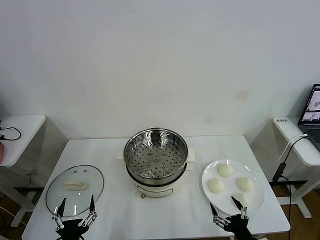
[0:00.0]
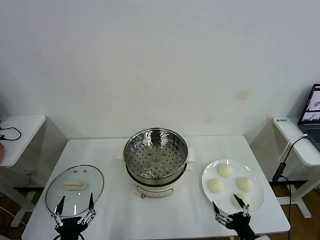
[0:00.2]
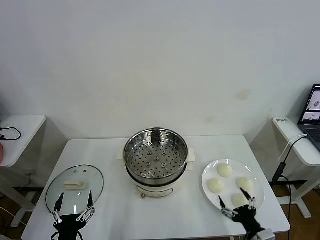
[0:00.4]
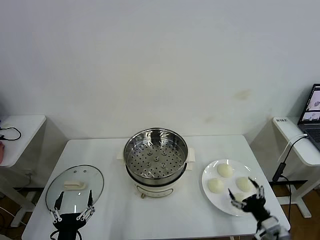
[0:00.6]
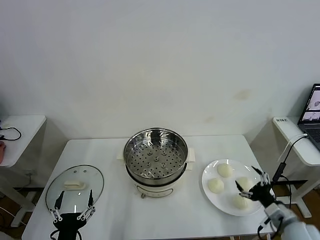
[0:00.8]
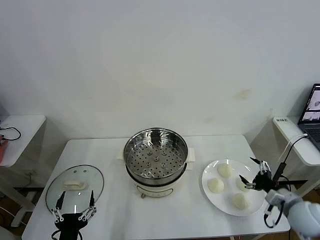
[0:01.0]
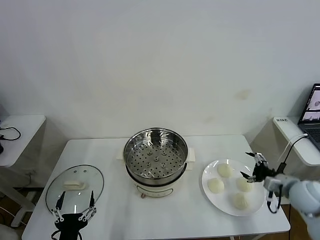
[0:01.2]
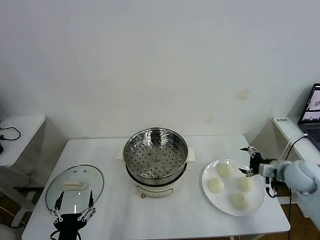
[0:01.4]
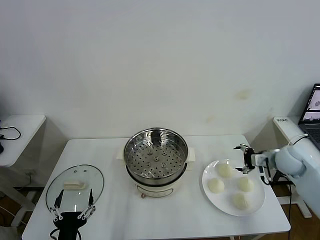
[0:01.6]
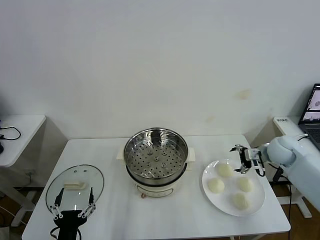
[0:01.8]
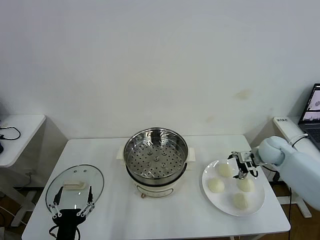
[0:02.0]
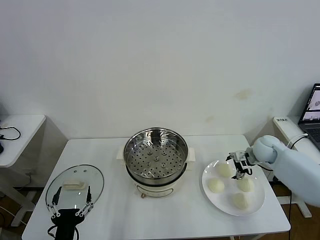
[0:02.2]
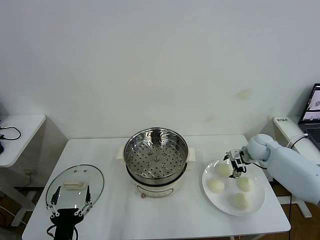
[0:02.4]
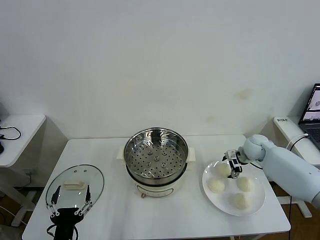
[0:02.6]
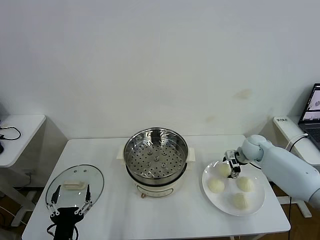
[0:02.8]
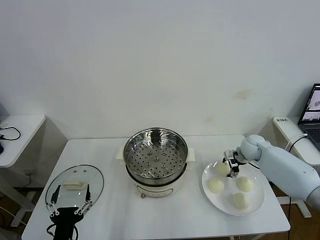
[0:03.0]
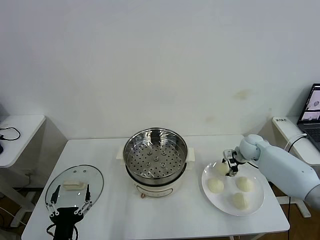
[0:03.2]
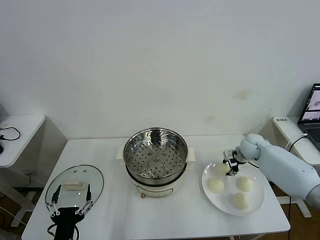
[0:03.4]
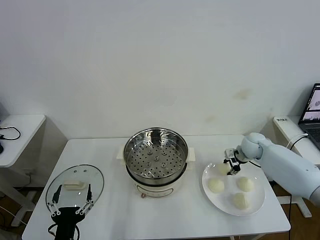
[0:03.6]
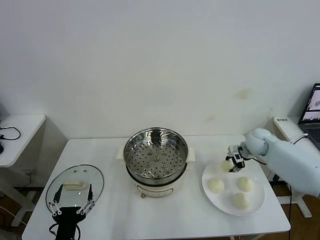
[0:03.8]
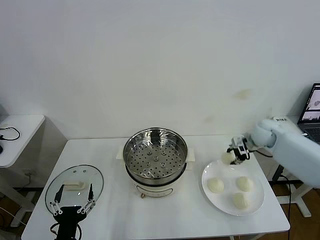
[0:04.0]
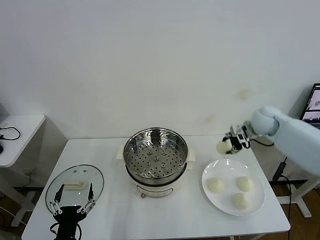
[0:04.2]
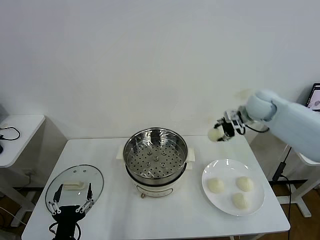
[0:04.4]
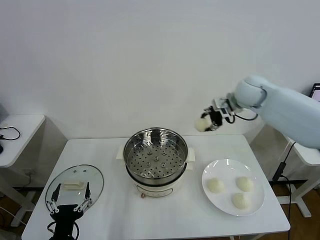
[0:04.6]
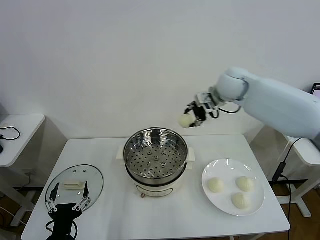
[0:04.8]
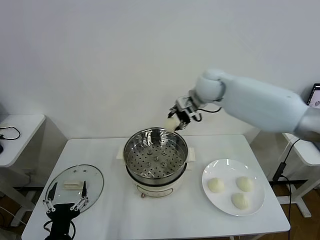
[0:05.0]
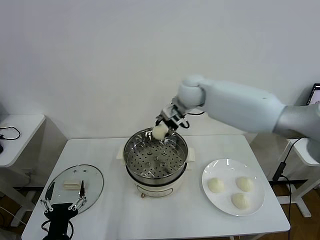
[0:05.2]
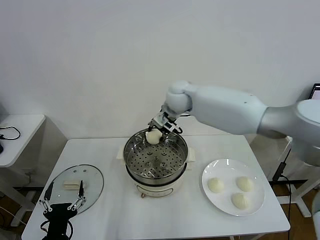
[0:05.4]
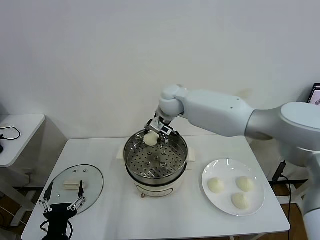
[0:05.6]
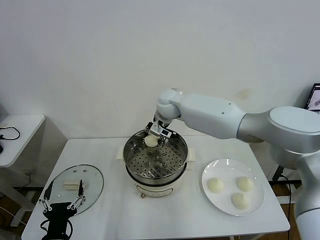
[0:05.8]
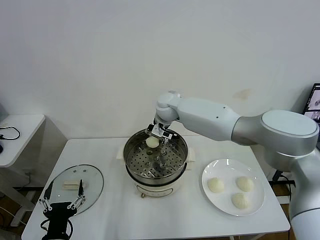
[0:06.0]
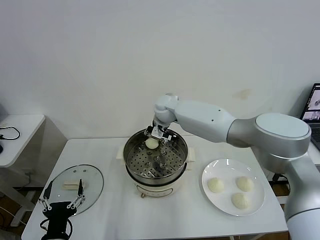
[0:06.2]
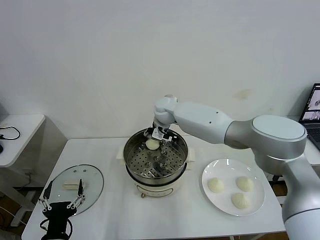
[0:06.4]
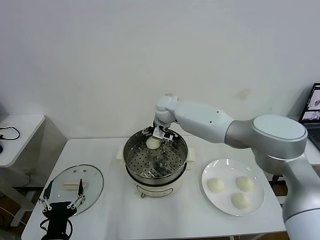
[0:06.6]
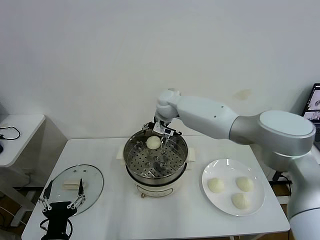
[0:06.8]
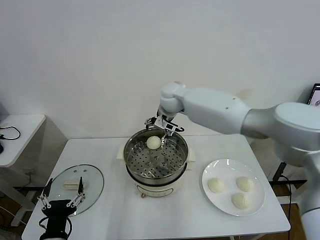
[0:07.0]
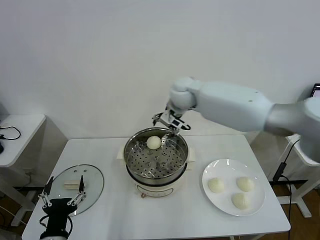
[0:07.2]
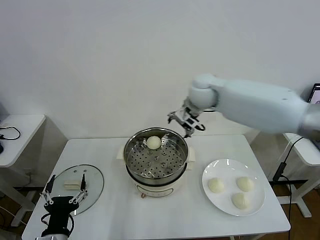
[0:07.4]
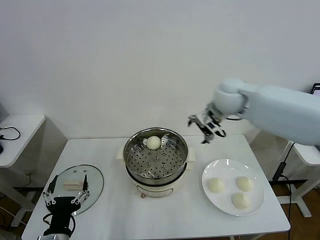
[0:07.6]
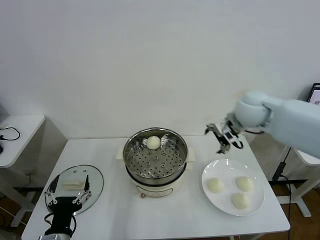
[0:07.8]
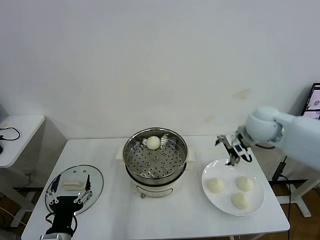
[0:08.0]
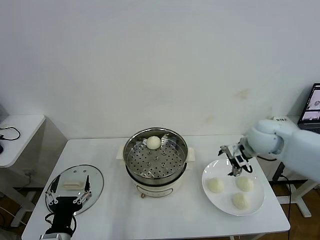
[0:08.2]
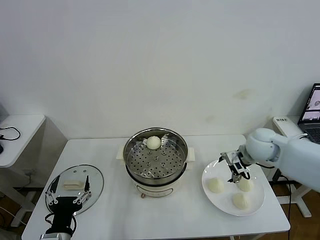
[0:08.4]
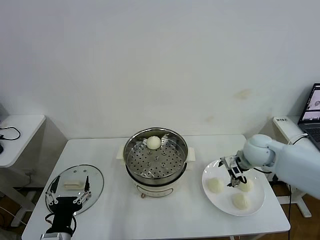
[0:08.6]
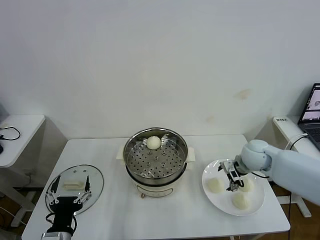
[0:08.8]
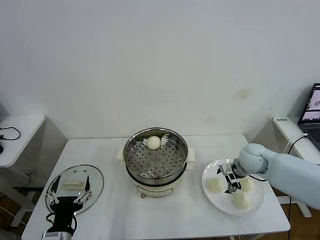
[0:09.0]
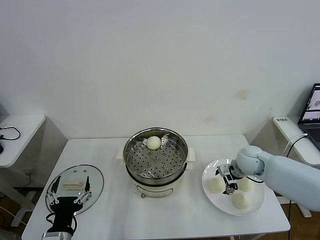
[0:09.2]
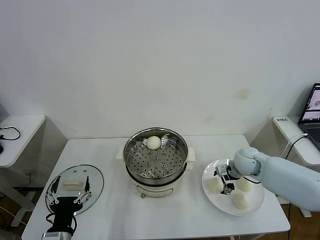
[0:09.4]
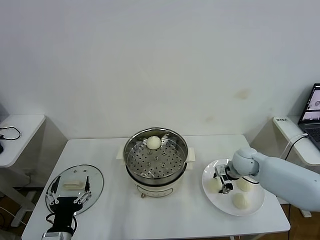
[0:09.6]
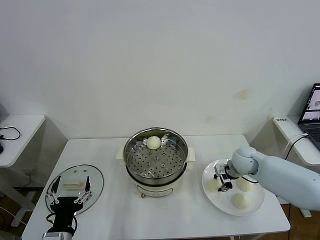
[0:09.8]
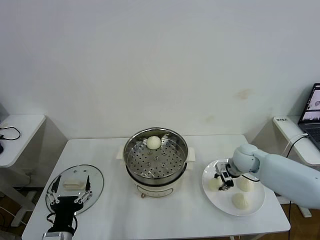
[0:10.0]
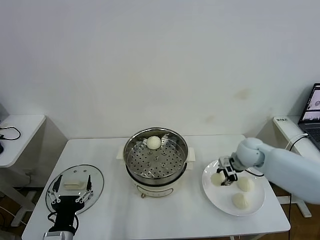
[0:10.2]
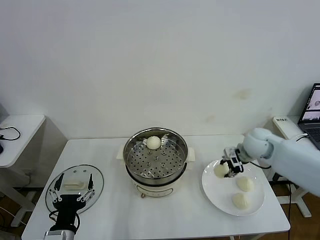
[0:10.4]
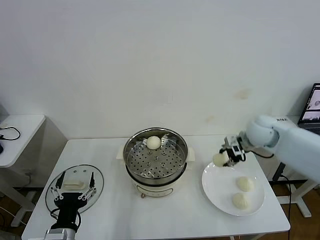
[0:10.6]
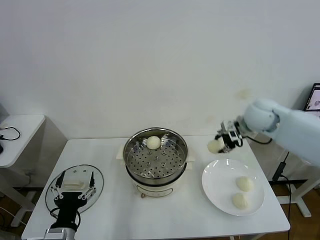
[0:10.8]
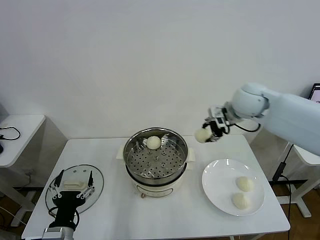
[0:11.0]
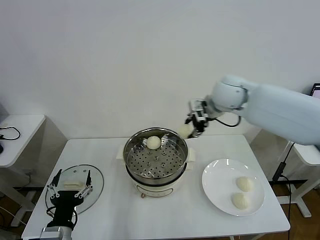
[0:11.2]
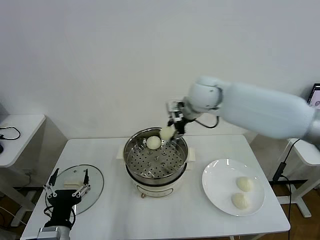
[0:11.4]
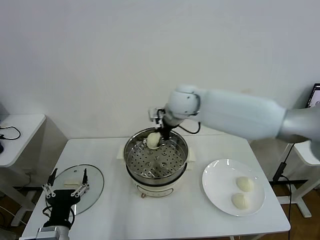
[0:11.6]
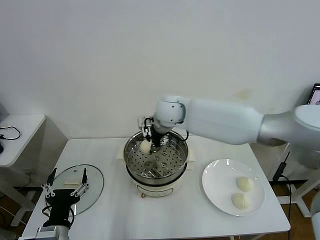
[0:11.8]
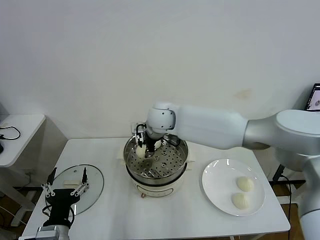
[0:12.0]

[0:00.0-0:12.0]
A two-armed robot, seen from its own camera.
Task of the whole recording: take steamed baozi put them in steamer then cover it.
Step, 0:00.0 to 0:03.4: Grasp the baozi in the plate with right gripper.
Step, 0:03.6 to 0:06.6: Place the baozi on the steamer with right gripper.
Step, 0:06.8 to 0:09.8: Grasp the baozi in the plate with right gripper.
0:01.6 to 0:03.0: The right gripper shifts approximately 15 cm forward, downward and to the left, and closes.
0:03.0 to 0:04.4: The right gripper moves upward, some 20 cm, and closes its fingers.
0:04.4 to 0:06.0: The right gripper moves to the left, approximately 30 cm.
0:06.0 to 0:07.6: The right gripper heads to the right, upward and backward, covering roughly 20 cm, and opens up.
0:07.6 to 0:09.0: The right gripper goes about 25 cm downward and to the right.
0:09.0 to 0:10.4: The right gripper heads upward, covering some 5 cm, and closes up.
0:10.4 to 0:12.0: The right gripper moves to the left, roughly 35 cm.

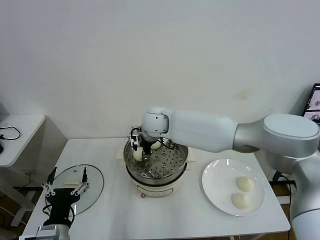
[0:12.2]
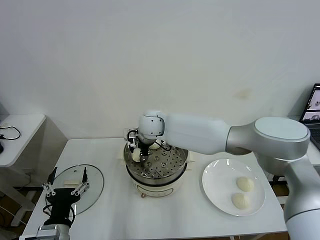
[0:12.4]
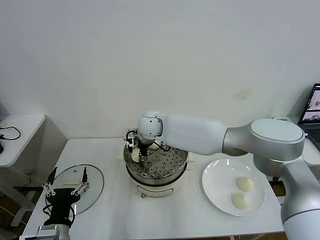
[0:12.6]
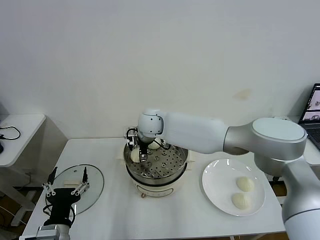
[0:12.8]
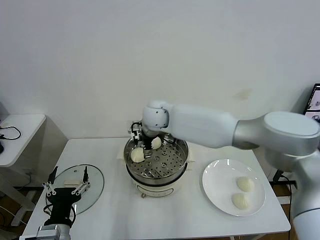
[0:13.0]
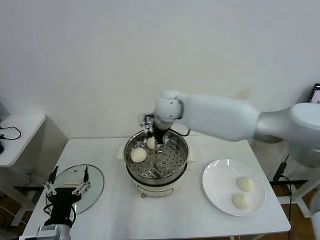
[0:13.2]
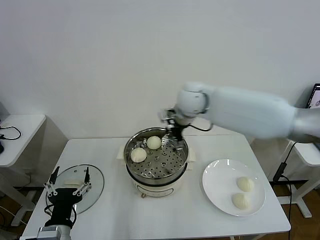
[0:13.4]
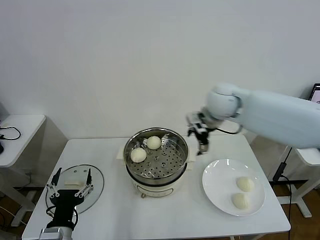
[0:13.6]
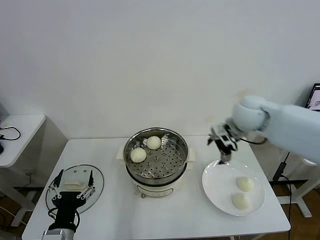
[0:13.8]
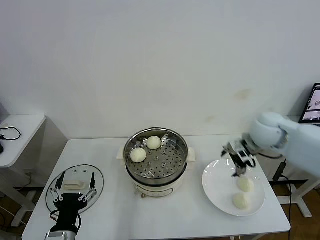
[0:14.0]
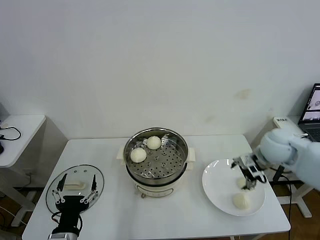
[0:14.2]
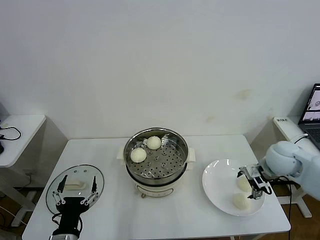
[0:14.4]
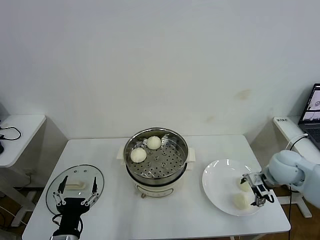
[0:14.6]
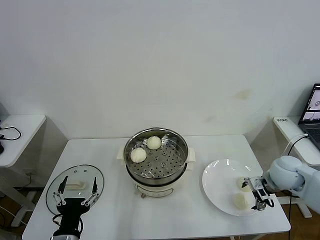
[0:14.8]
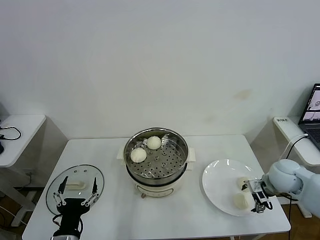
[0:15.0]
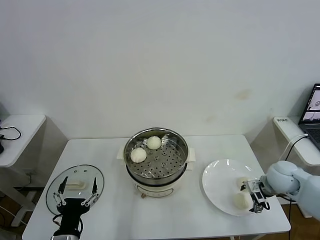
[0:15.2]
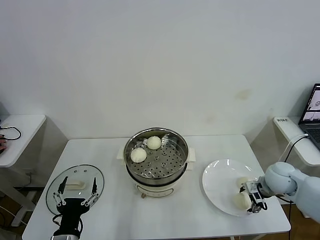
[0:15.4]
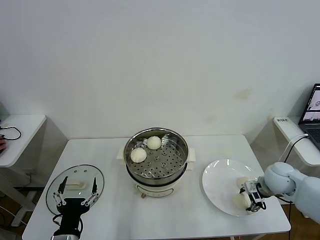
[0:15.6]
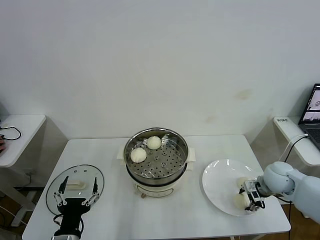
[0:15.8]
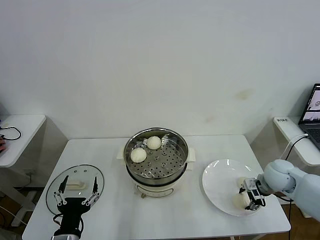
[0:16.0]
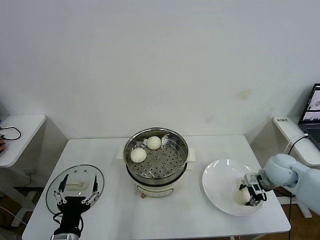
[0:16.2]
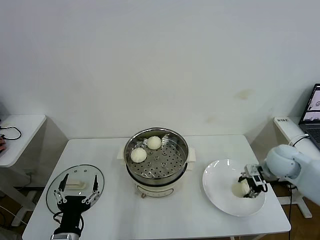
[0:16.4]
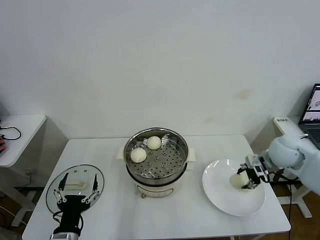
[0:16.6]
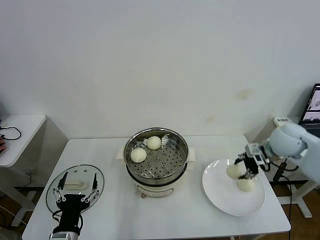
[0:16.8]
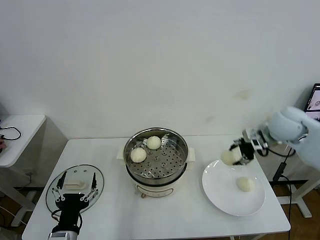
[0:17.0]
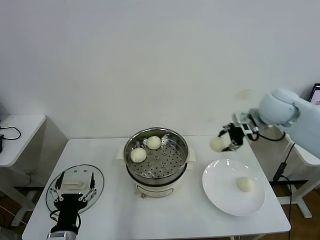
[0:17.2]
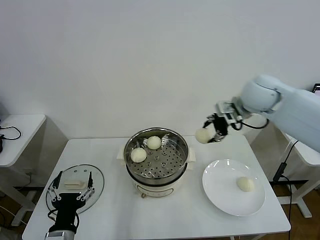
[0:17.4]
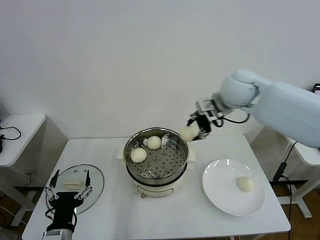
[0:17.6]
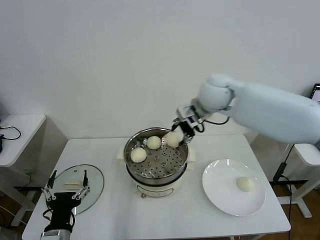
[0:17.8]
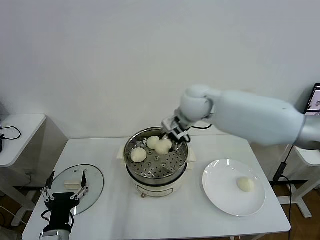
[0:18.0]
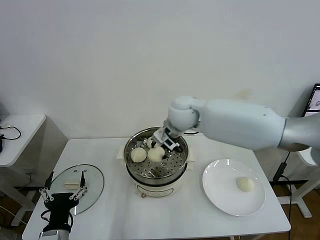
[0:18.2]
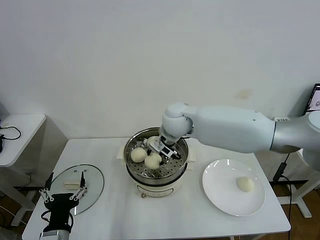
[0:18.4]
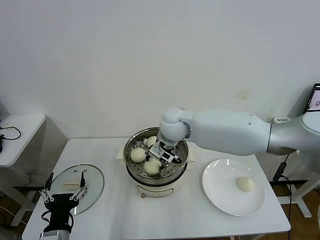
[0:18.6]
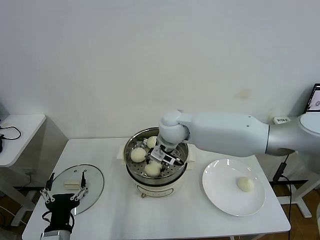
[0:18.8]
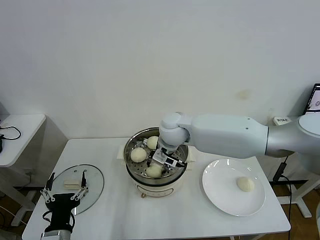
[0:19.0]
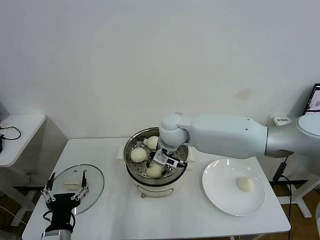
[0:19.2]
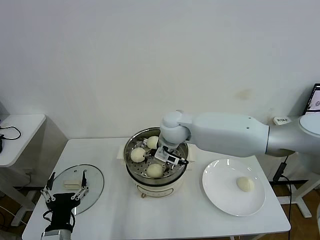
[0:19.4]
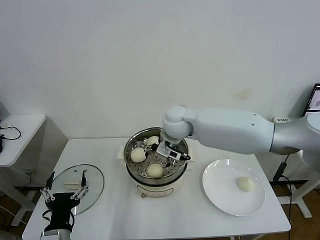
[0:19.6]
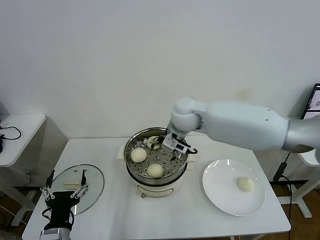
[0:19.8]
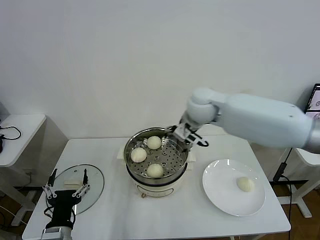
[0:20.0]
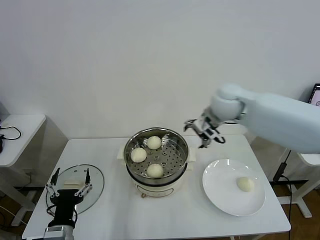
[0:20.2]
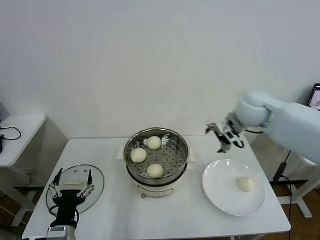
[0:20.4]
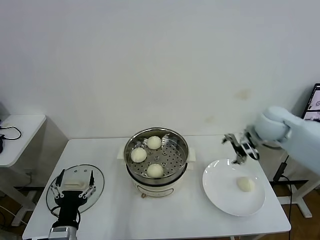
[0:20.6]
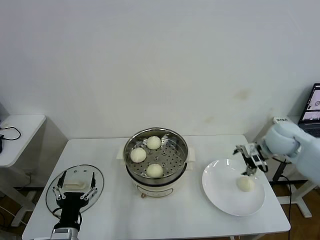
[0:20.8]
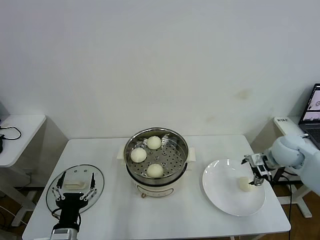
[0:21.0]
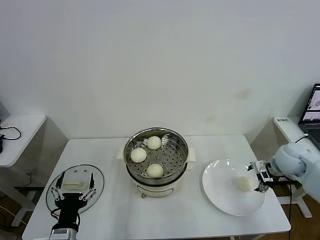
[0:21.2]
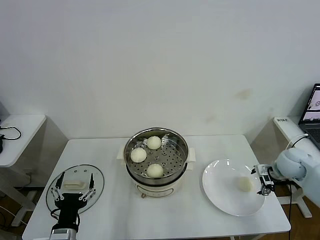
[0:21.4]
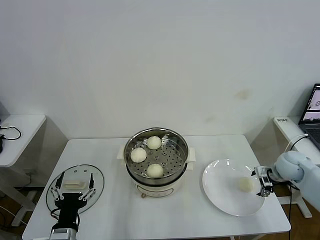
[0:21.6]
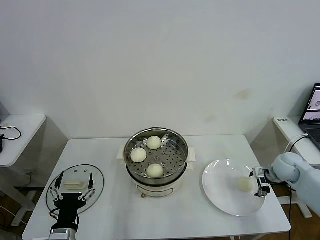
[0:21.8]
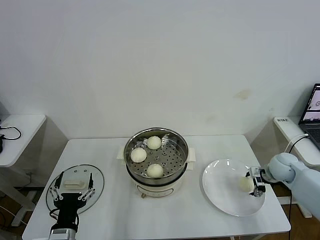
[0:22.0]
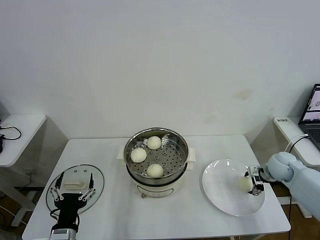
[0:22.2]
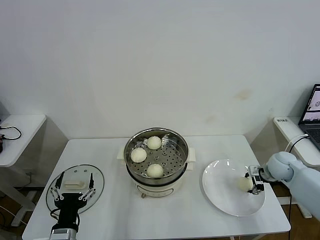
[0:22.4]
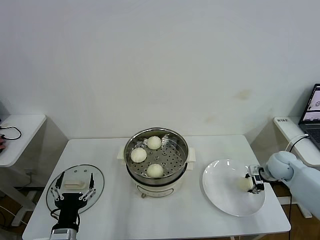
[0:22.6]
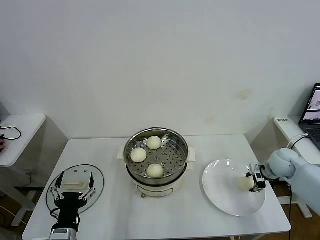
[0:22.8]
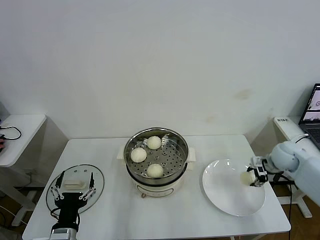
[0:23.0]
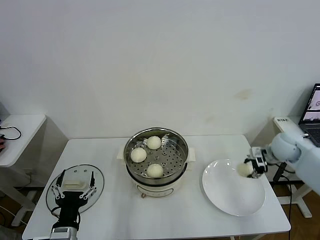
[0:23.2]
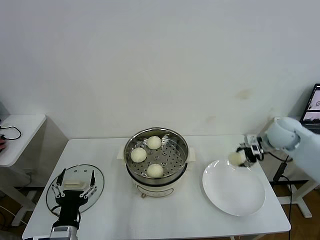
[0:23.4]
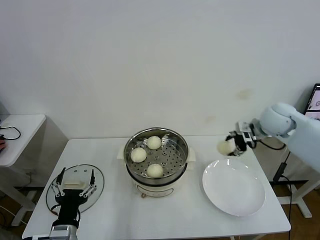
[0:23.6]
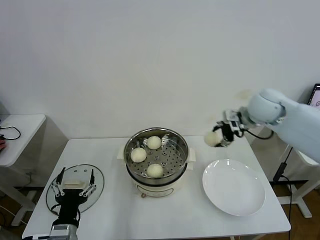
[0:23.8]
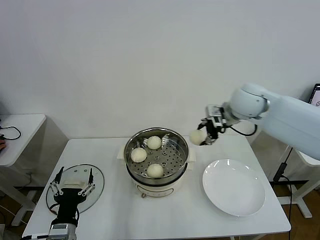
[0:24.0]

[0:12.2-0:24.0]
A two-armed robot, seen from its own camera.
Task of the whole recording: take steamed baozi put them in steamer then cover it.
Step, 0:13.0 to 0:15.6: Grasp the baozi in the plate with right gripper.
Step, 0:16.0 to 0:19.6: Place the baozi on the steamer with right gripper.
Step, 0:19.8 to 0:22.6: Grasp the baozi in the plate with right gripper.
0:12.2 to 0:13.6: The right gripper travels to the right and upward by roughly 20 cm, and opens.
0:13.6 to 0:15.2: The right gripper is displaced to the right, downward and backward by about 30 cm.
0:15.2 to 0:16.6: The right gripper heads upward, covering approximately 10 cm, and closes.
0:16.6 to 0:18.2: The right gripper travels to the left by roughly 30 cm.
0:18.2 to 0:19.6: The right gripper opens.
0:19.6 to 0:21.0: The right gripper goes approximately 35 cm to the right.
0:21.0 to 0:22.6: The right gripper goes about 10 cm downward, and closes up.
0:22.6 to 0:24.0: The right gripper is displaced upward and to the left by some 30 cm.
